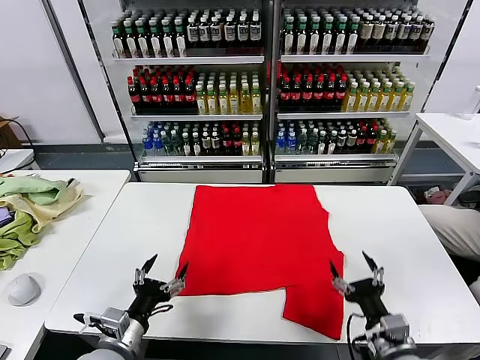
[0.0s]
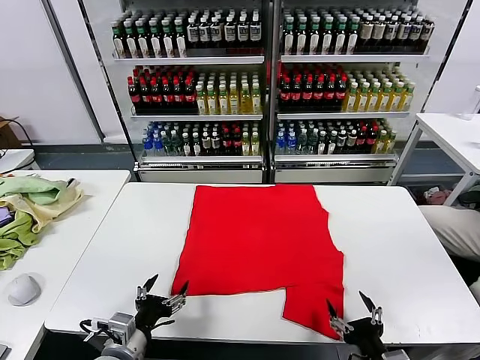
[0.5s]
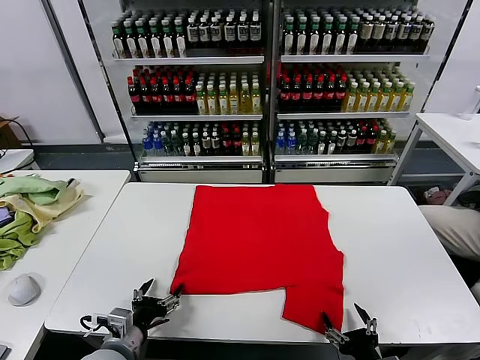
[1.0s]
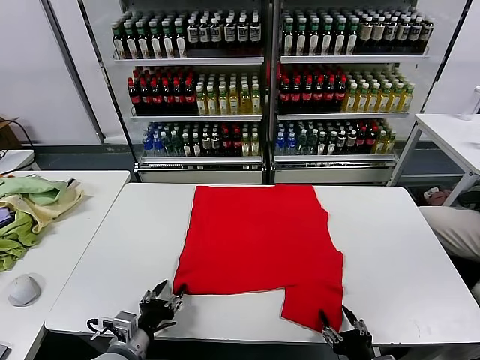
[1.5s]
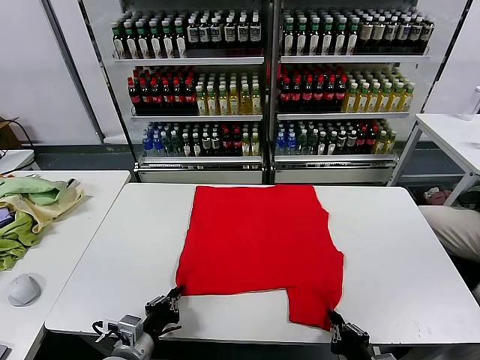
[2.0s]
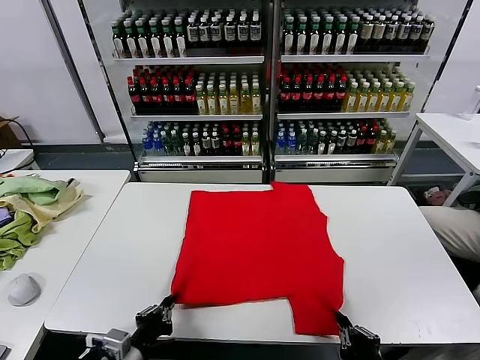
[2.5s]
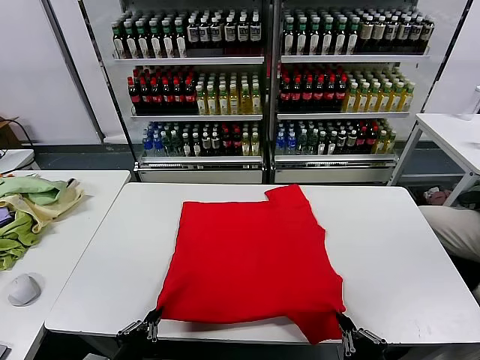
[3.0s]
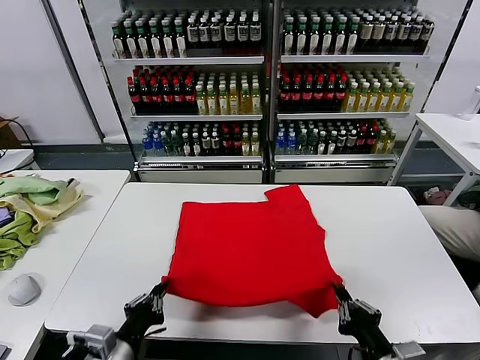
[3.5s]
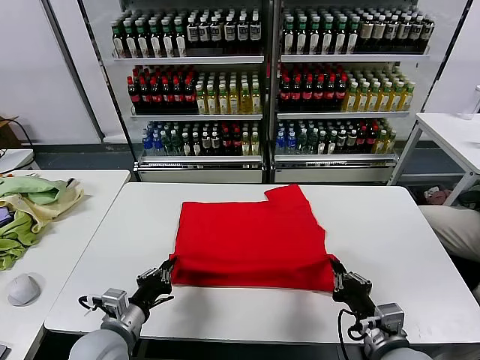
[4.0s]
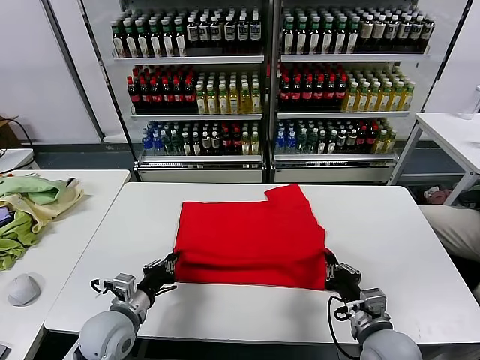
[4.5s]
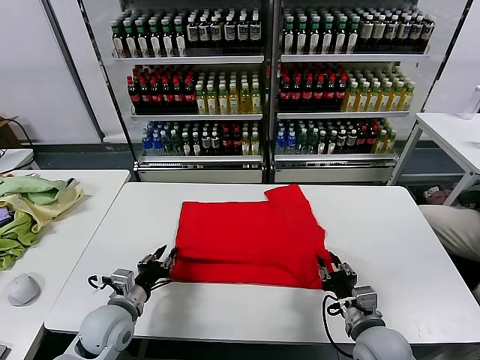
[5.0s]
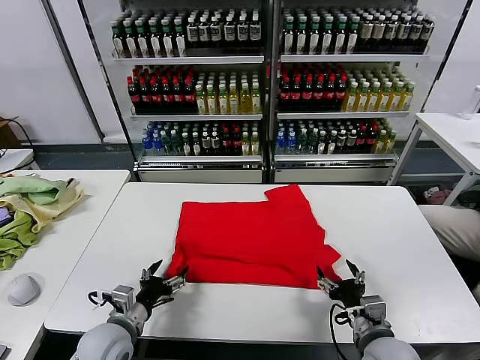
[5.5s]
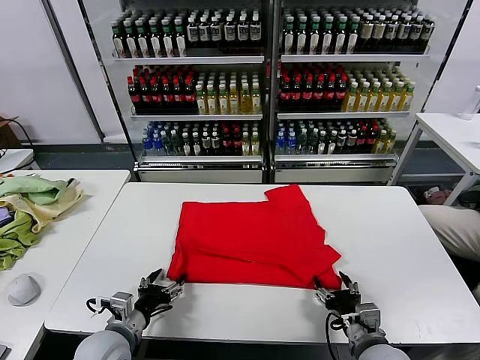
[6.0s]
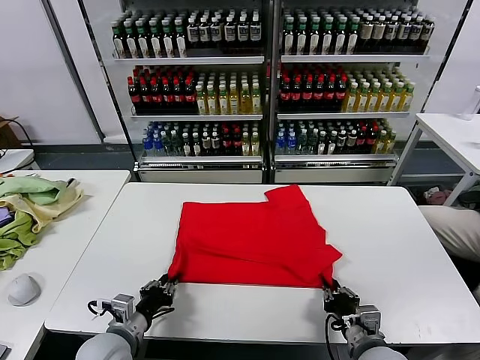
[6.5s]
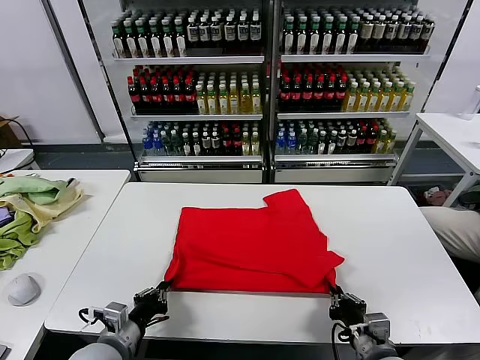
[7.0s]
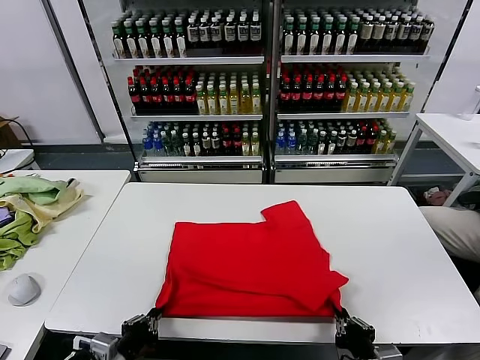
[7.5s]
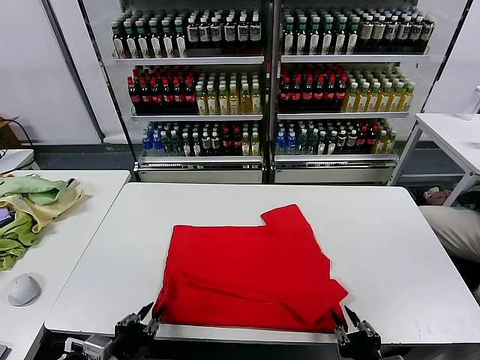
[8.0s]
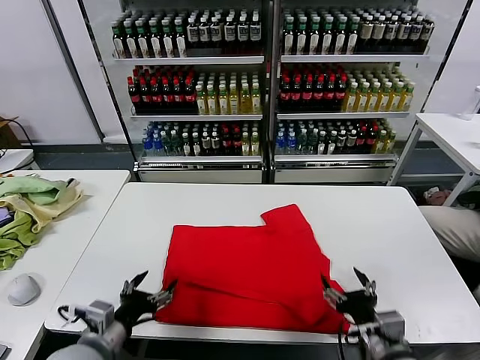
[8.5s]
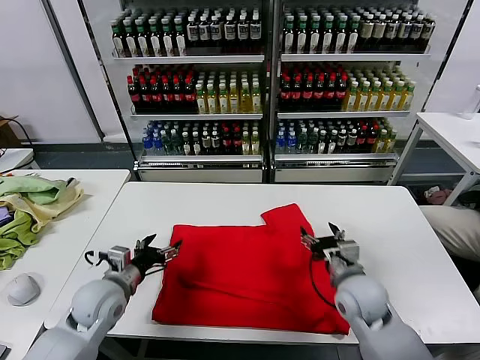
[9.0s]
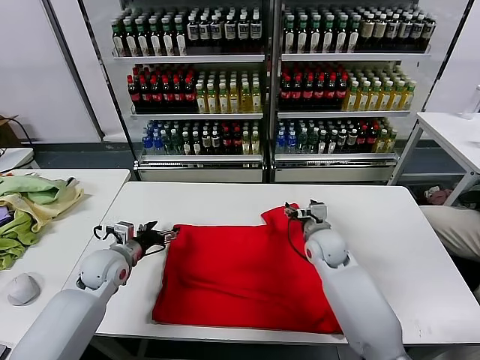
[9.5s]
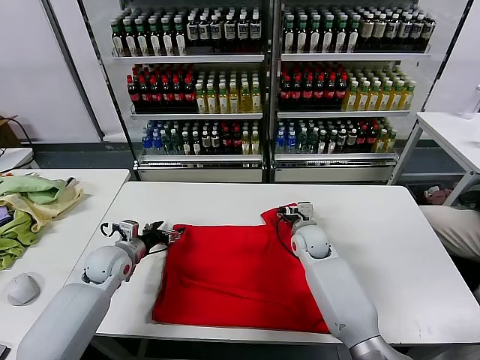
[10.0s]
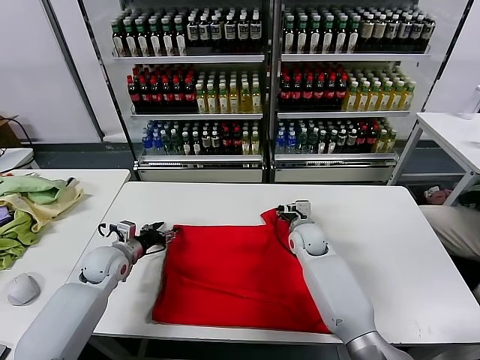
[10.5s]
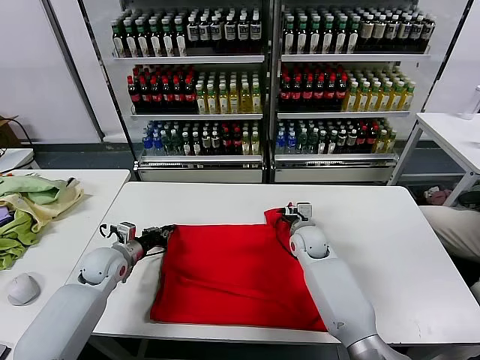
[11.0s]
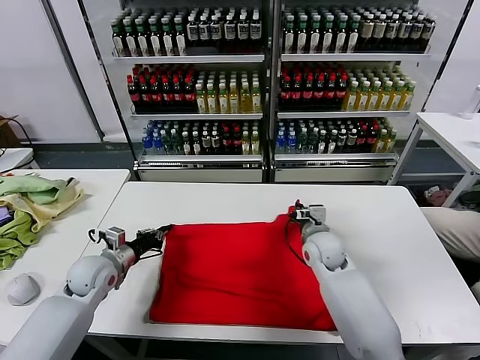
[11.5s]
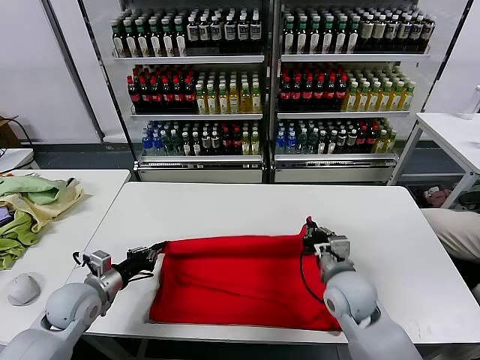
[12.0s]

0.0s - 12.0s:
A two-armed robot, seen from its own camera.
Task of the whole recording: fold and organize the clothes.
Step, 0.0s - 2.0s: use both grippers simultaneously to clamp the lower edge of the clothing fabric.
Step, 2.5s - 5.0s: use both grippers to drag the lower edge of the fabric forward and fold it over the upper edge.
Step, 5.5s - 8.0s: Drag the clothes downward with both gripper.
Step, 8.5s - 11.0s: use both grippers simultaneously to clamp the upper edge of the clothing fabric.
2.0s - 4.0s: The left gripper travels backward and back again, some 10 cm each way; the right gripper moves forward and upward, approximately 10 cm.
4.0s - 6.0s: The right gripper moves downward, some 5 cm, and opens; the left gripper opens.
6.0s - 8.0s: The left gripper travels backward by some 10 cm, and closes. Meanwhile the right gripper heads backward and upward, covering about 10 cm, and closes, then reopens.
8.0s - 10.0s: The two grippers go approximately 35 cm forward. The right gripper opens its fingers. Meanwhile the left gripper opens up.
10.0s - 12.0s: The right gripper is displaced backward by roughly 20 cm, and closes up; the left gripper heads backward, covering about 10 cm, and closes.

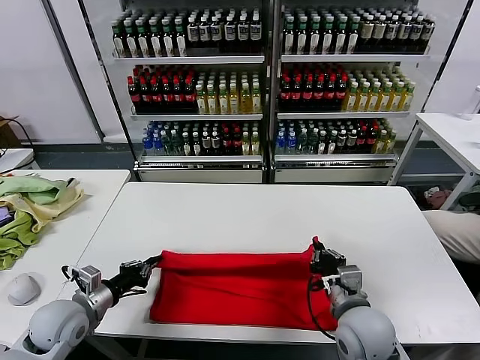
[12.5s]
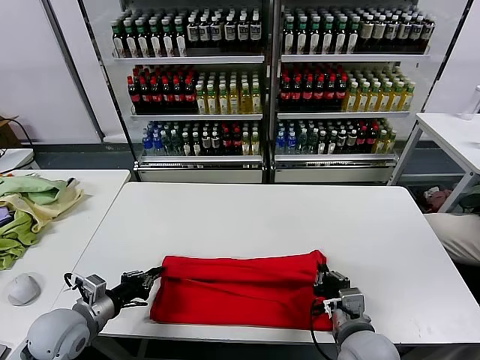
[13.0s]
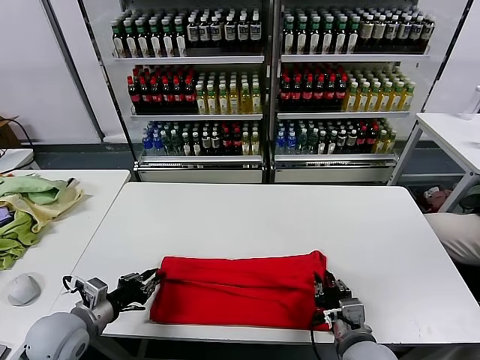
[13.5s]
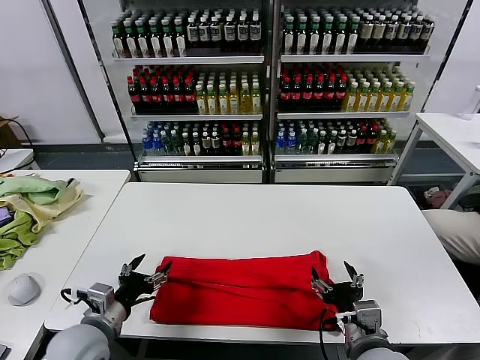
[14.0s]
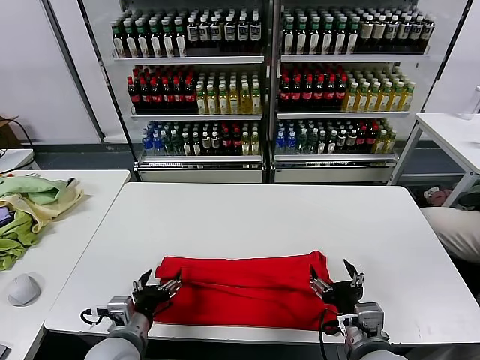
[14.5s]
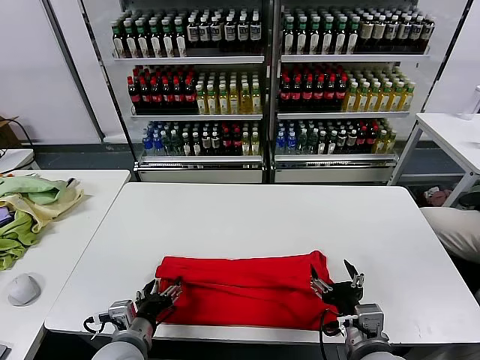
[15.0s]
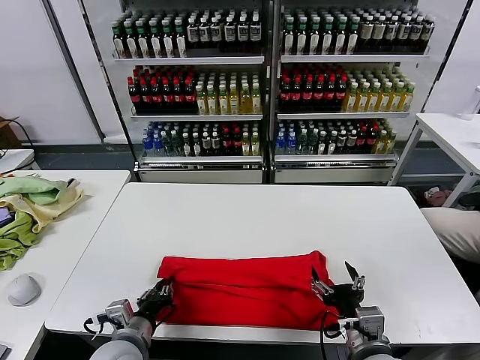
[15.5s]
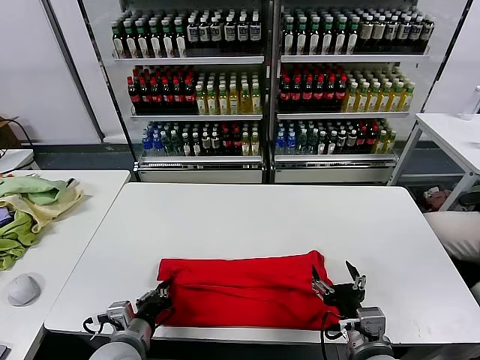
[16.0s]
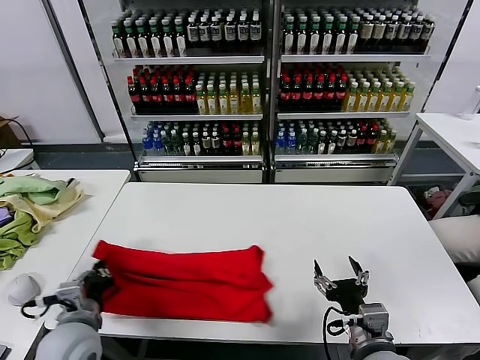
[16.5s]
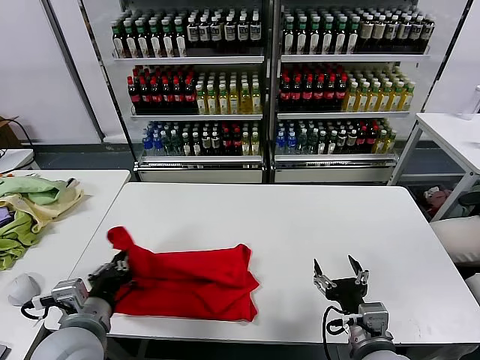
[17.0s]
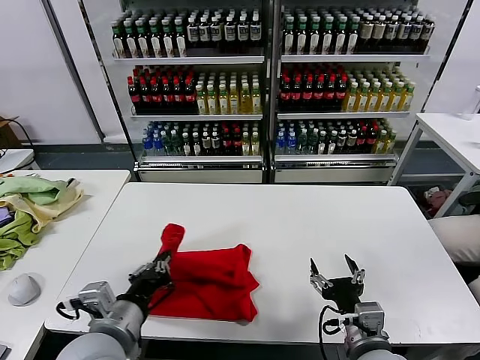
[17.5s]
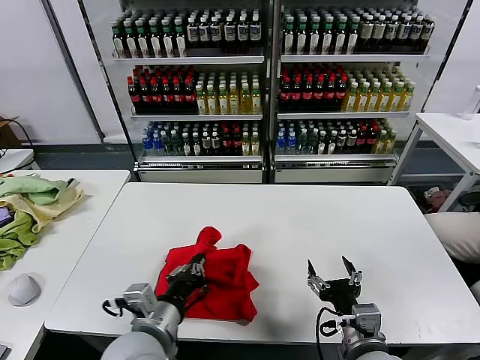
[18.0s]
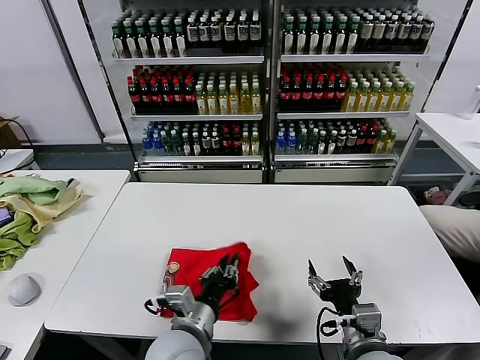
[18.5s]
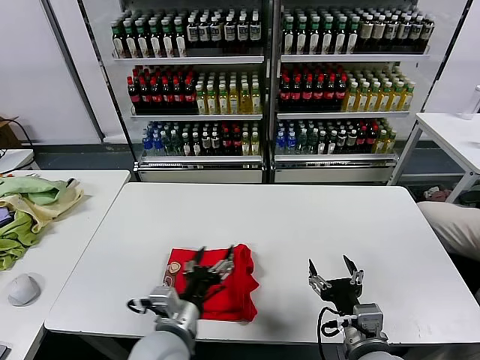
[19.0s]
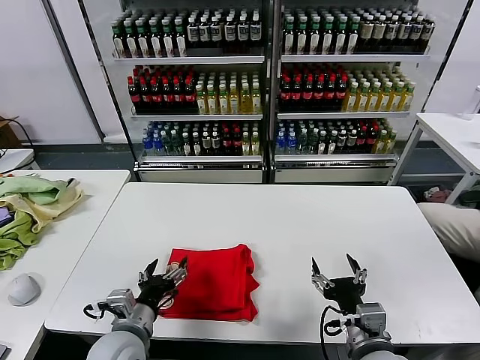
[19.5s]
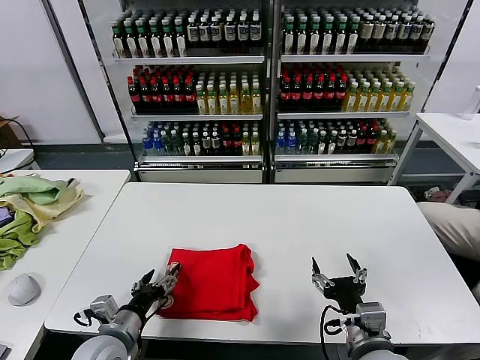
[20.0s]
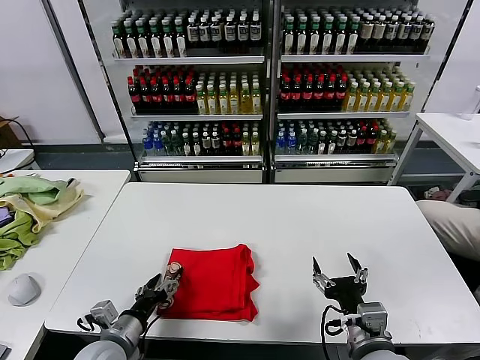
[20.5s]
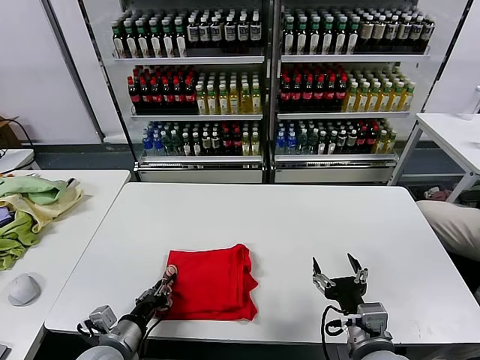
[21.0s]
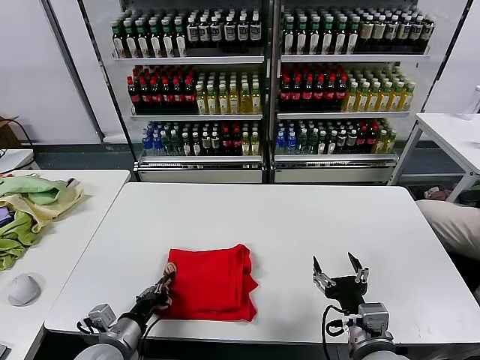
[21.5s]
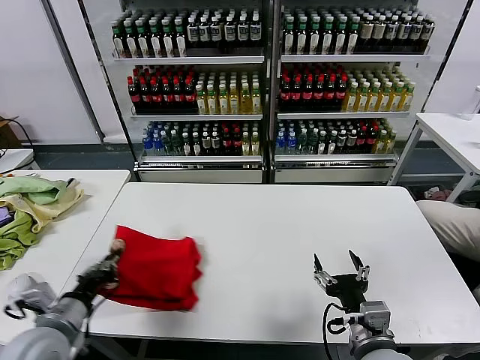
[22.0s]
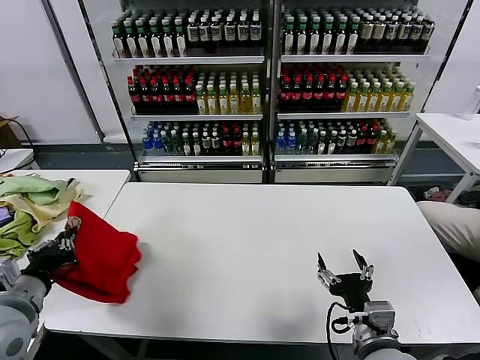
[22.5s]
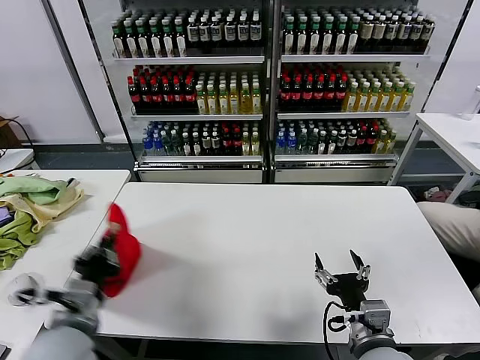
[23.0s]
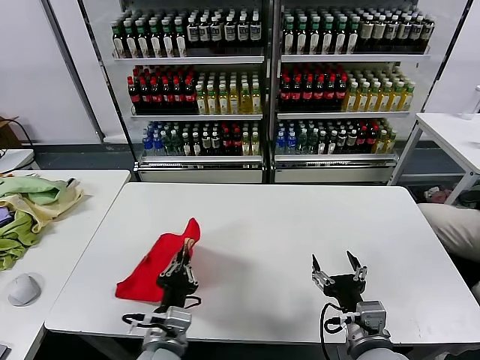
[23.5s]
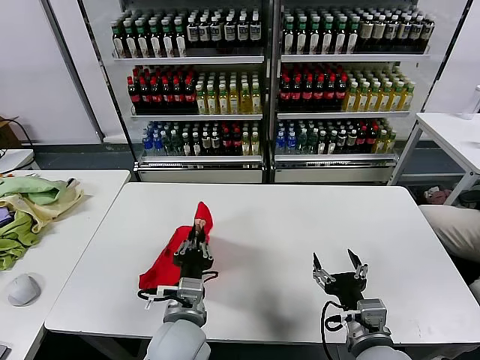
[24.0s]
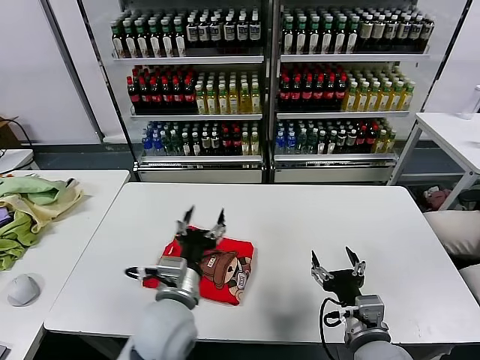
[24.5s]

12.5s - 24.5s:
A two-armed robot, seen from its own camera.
Task of the whole recording: fold and organize the clothes.
Step, 14.0s - 15.5s: use the left gripper to clamp the left edge of the fabric.
Step, 16.0s - 18.5s: use the left gripper to drag the left edge of the fabric to the left and folds it over the right edge.
Step, 19.0s - 24.0s: Flip the folded clothes over with left gripper.
12.5s - 14.5s: The left gripper goes approximately 15 cm to the right and backward, and opens. The right gripper goes roughly 5 cm backward, and opens up.
14.5s - 16.5s: The left gripper is displaced to the left by roughly 5 cm, and closes its fingers.
16.5s - 18.5s: The left gripper is displaced to the right by some 20 cm.
18.5s - 20.5s: The left gripper heads to the left and downward, covering about 20 cm, and opens its fingers.
20.5s - 22.5s: The left gripper moves upward and to the left, roughly 20 cm, and closes.
22.5s - 24.5s: The left gripper is displaced to the right by about 25 cm, and opens up.

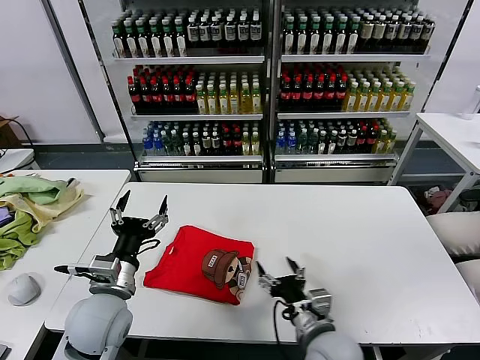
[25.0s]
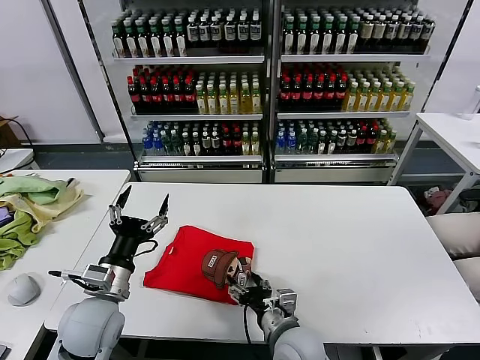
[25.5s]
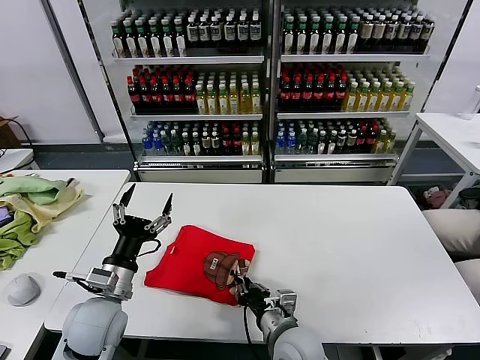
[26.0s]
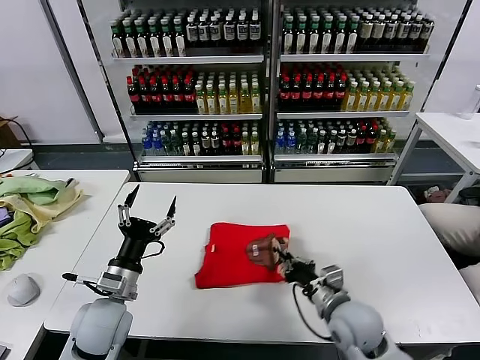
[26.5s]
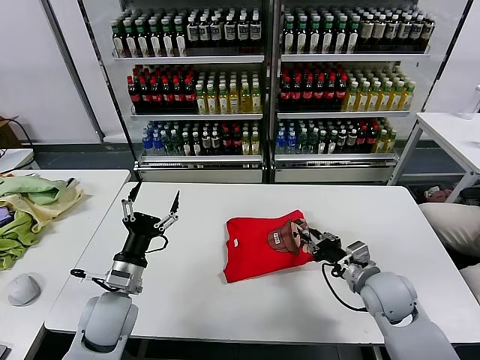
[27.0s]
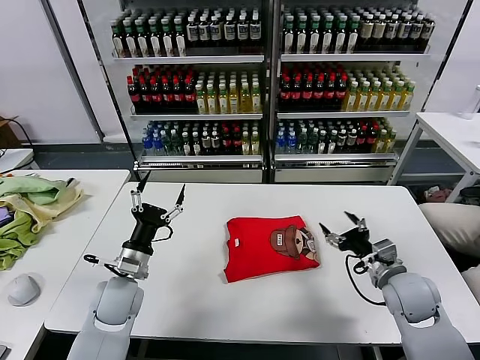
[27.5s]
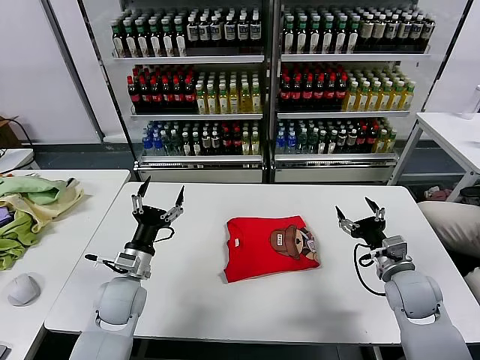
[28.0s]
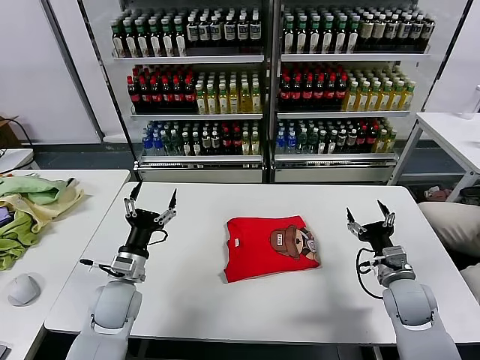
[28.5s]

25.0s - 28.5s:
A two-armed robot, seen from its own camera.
Task of the whole recording: fold and organize the clothes.
Step, 25.0s - 27.0s: Drag the clothes to the center of the table.
25.0s - 27.0s: The left gripper changes place by about 5 cm; the right gripper heads to the right and forward, covering about 15 cm, and closes its fingers.
27.0s - 28.5s: The left gripper moves roughly 5 cm, while the right gripper is displaced to the right by some 5 cm, and opens up.
